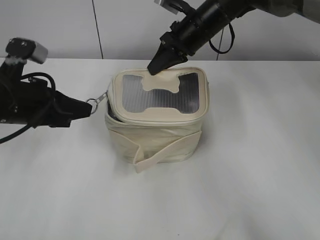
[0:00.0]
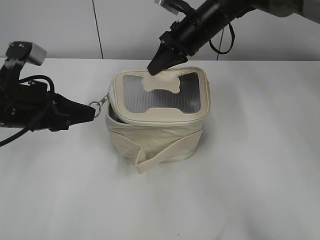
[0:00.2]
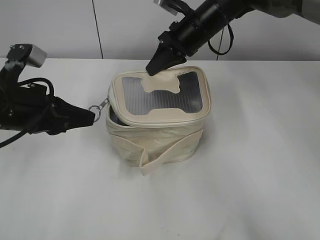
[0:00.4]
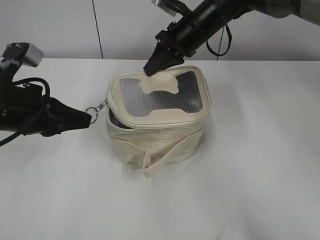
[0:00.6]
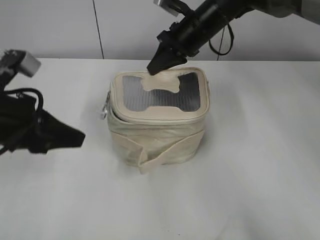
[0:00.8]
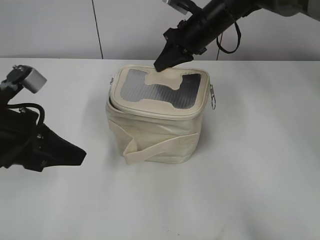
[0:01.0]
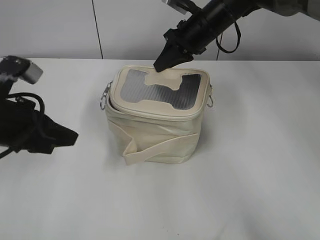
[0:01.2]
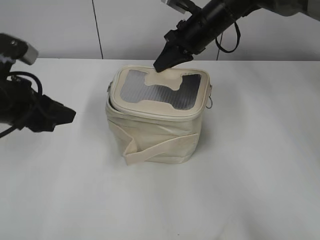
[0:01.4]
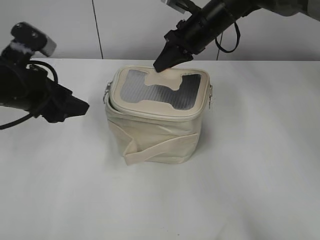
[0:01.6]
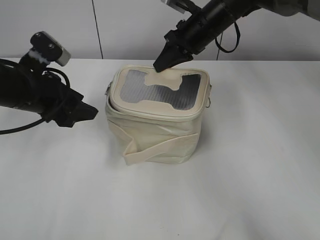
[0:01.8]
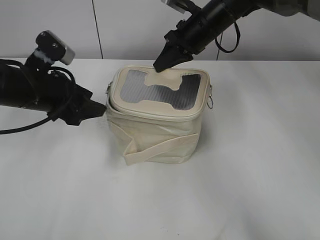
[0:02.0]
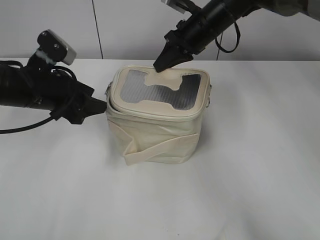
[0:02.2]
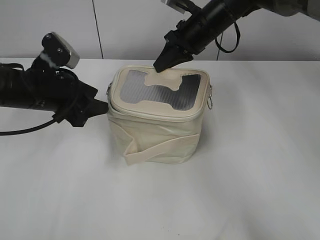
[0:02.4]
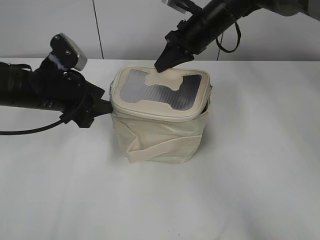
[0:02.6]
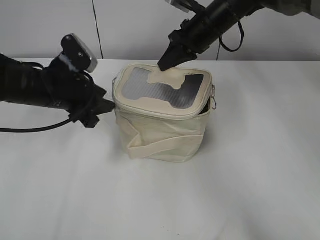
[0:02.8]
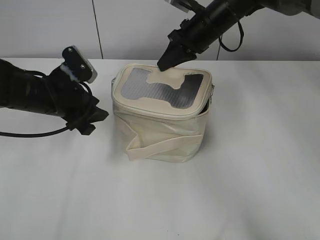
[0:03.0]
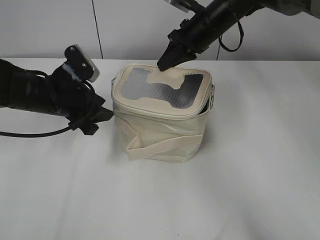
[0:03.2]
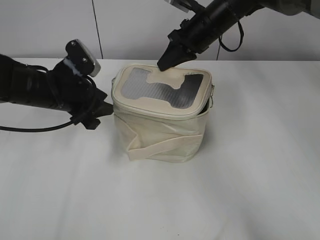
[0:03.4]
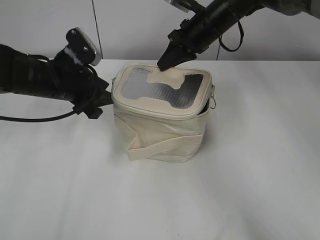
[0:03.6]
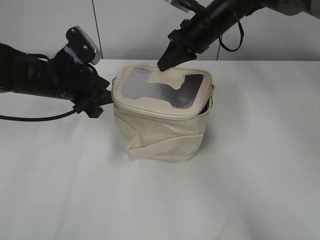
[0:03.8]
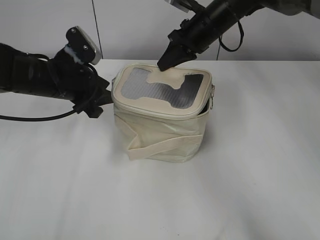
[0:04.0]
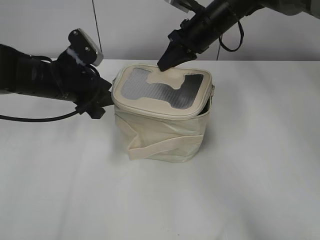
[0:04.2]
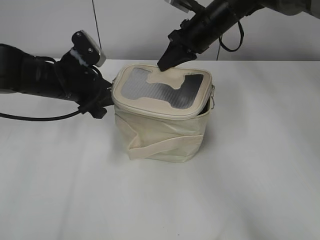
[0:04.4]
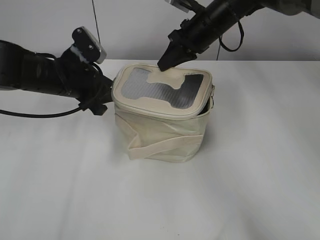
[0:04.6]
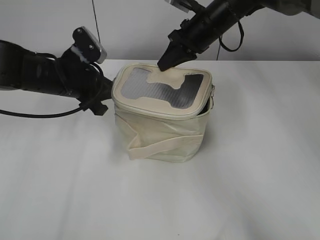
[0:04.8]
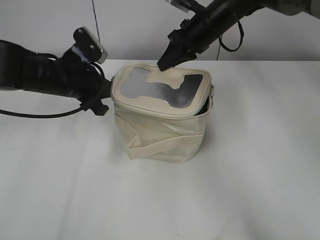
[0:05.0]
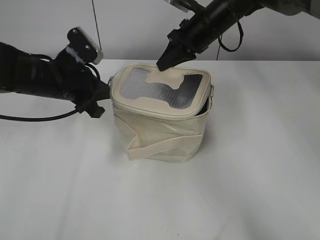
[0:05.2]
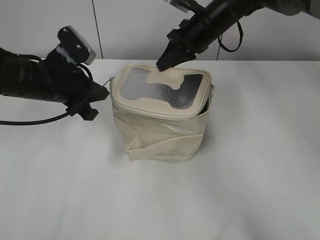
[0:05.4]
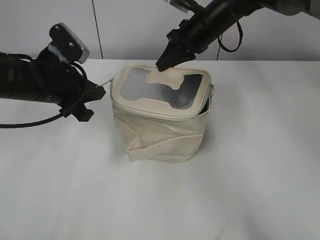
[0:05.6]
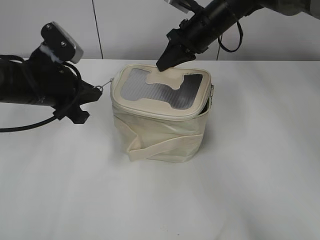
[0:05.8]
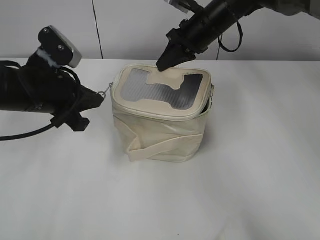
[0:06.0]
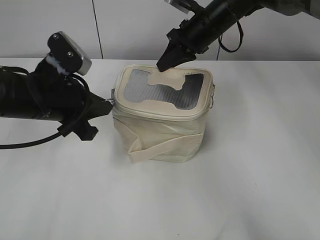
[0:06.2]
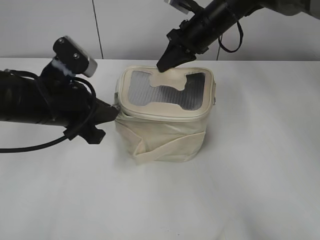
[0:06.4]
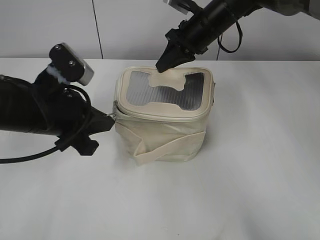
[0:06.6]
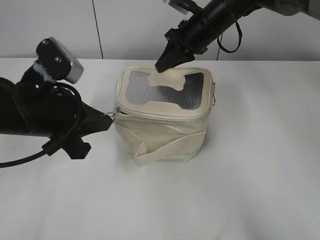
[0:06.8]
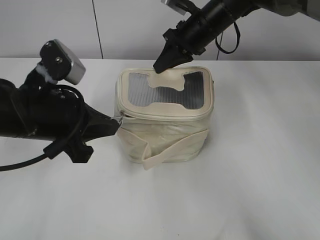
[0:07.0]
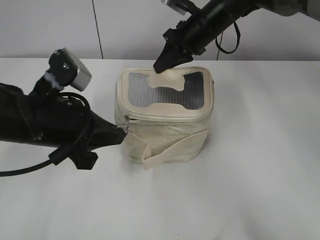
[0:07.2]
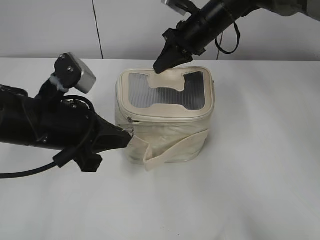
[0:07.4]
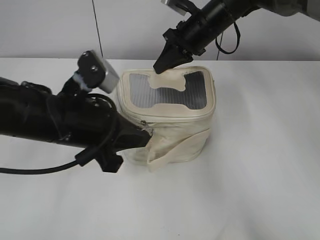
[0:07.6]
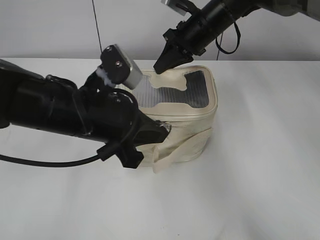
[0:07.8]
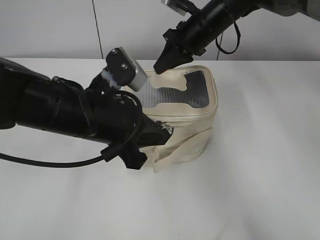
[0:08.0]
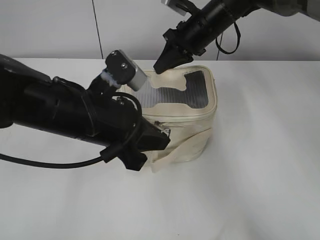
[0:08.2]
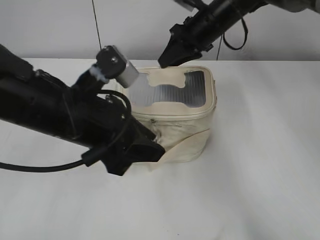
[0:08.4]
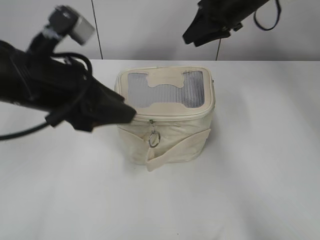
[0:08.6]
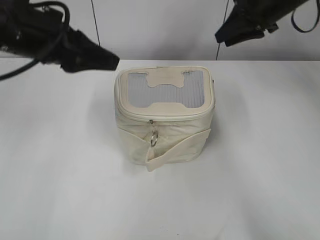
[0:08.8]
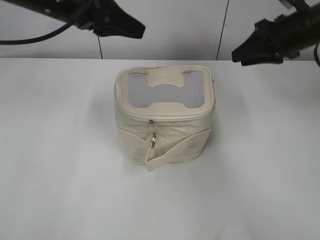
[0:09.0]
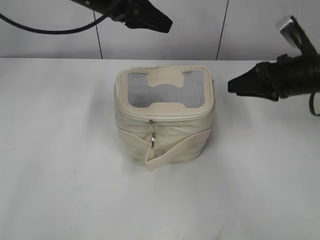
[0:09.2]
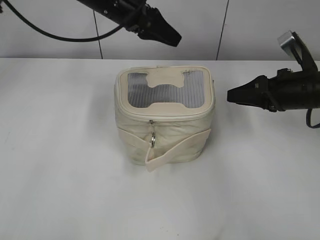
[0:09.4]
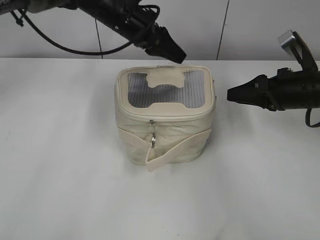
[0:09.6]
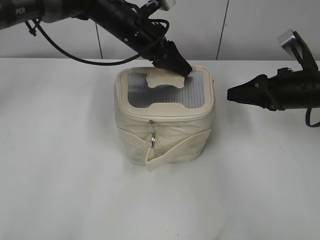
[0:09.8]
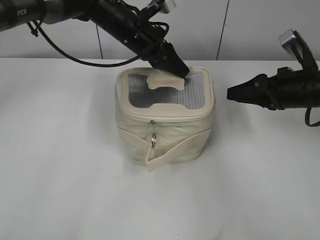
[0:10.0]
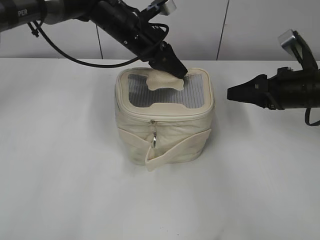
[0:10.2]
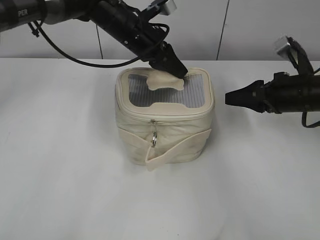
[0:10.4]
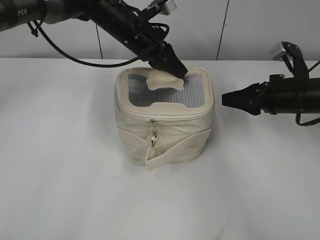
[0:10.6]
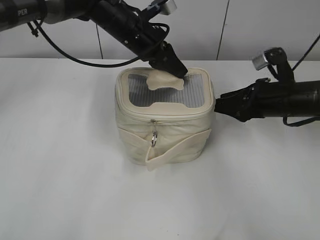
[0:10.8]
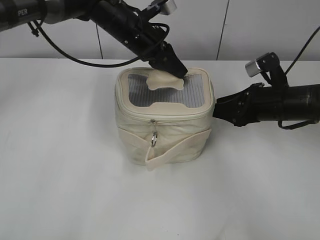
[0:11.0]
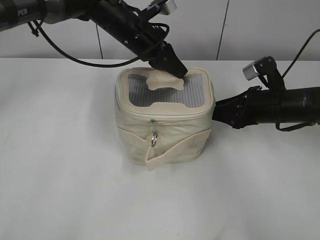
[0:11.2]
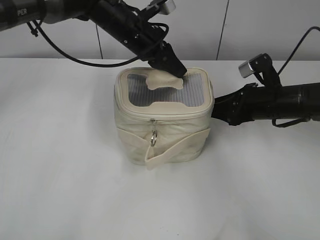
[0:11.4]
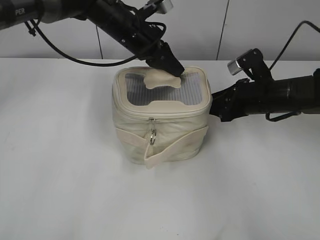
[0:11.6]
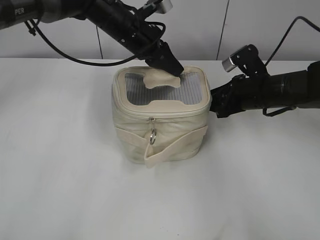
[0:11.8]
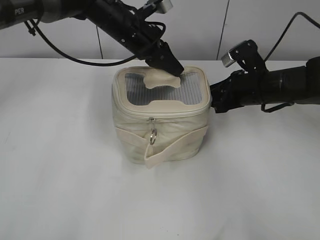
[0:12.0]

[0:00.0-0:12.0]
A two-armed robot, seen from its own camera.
Step, 0:00.0 to 0:08.2: Zip up the bag with your left hand.
0:00.0 to 0:01.6: The left gripper opens.
0:01.6 to 0:03.0: The left gripper travels downward and forward by roughly 10 cm.
0:03.0 to 0:04.4: There are only small adjustments of the grippers.
0:04.4 to 0:06.0: The left gripper goes roughly 5 cm backward, and closes its fingers.
0:06.0 to 0:07.6: The left gripper travels backward and to the right by some 10 cm.
0:07.6 to 0:09.0: The right gripper travels to the right by roughly 15 cm, and opens its fingers. Meanwhile the left gripper shifts approximately 15 cm forward and upward, and opens.
0:09.0 to 0:10.4: The left gripper goes approximately 20 cm to the right, forward and downward, and closes its fingers; the right gripper goes roughly 15 cm backward and downward.
0:10.4 to 0:12.0: The right gripper shifts some 5 cm to the left.

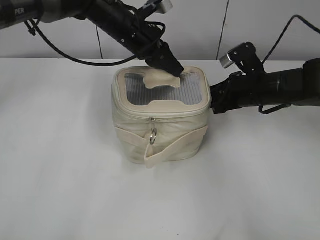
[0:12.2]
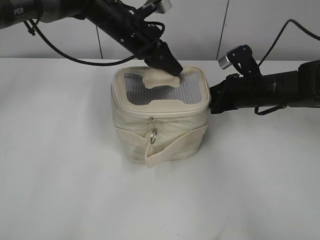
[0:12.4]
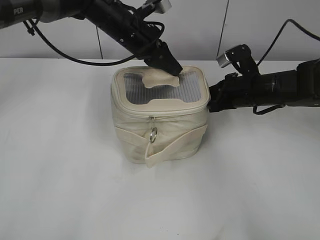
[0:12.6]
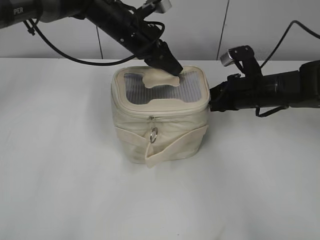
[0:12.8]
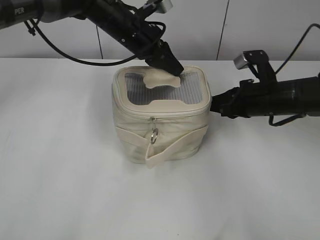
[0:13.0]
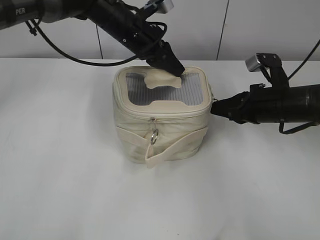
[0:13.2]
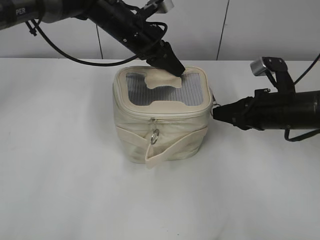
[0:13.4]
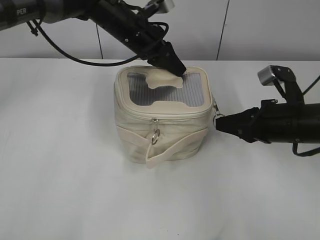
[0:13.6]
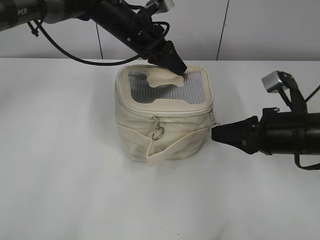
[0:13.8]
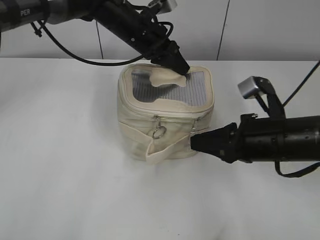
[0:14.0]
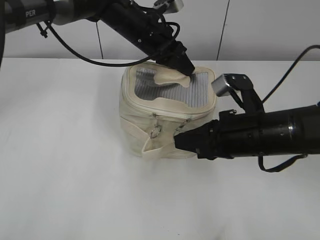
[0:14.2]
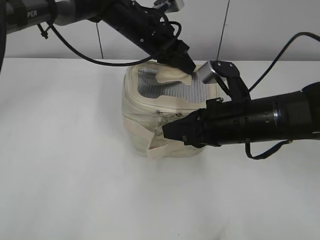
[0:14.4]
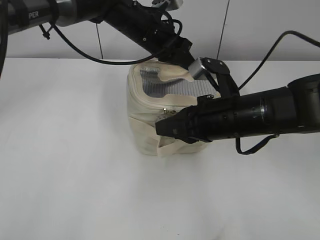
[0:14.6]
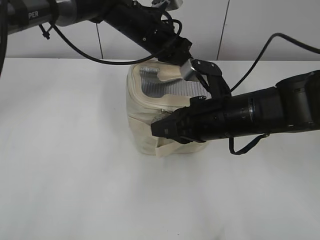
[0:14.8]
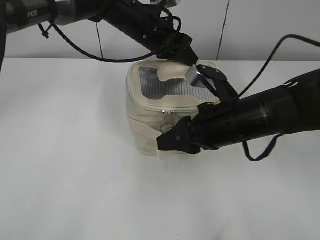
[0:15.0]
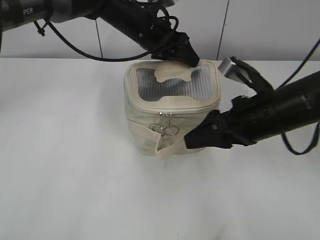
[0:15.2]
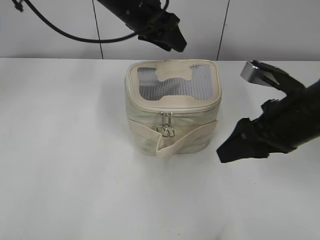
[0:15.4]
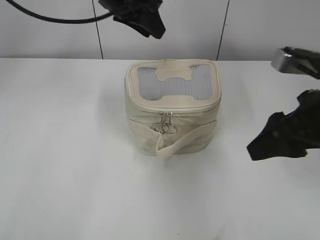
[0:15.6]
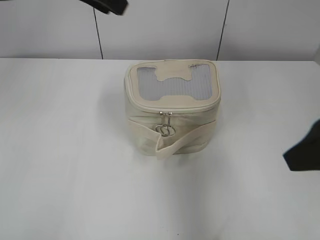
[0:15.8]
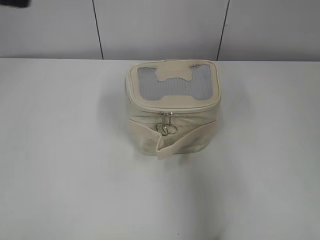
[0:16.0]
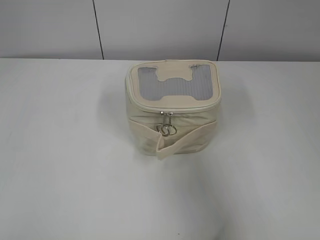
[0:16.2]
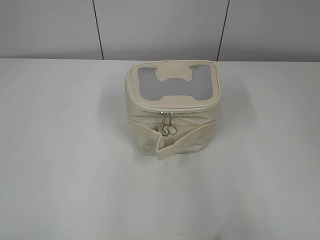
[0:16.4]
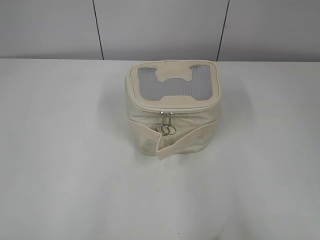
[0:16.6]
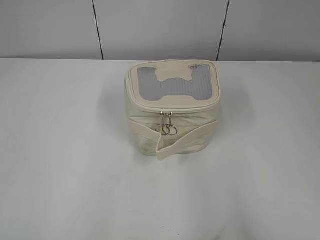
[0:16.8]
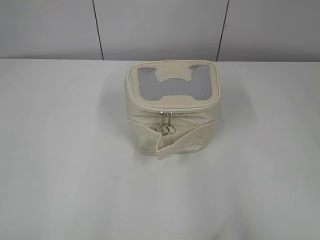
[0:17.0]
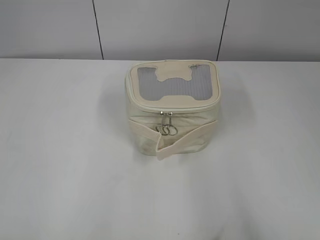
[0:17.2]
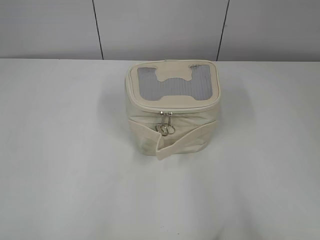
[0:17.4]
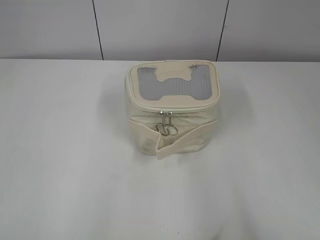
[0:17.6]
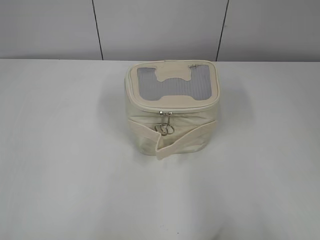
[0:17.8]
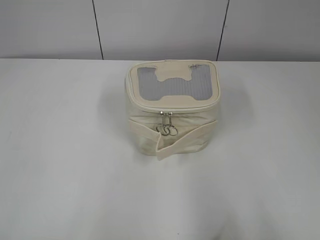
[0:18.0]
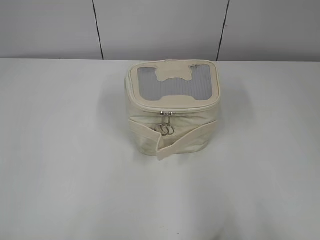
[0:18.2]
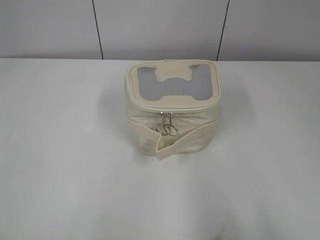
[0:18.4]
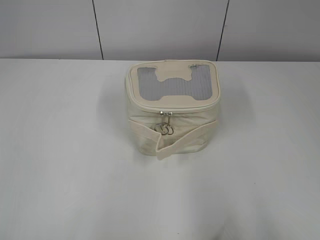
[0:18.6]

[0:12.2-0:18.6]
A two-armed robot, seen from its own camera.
Step, 0:12.2 to 0:14.8: Zip up the bag with your right hand.
Step, 0:15.0 to 0:15.2: Hold the bag with your left hand.
0:12.2 to 0:13.8: The right gripper is displaced backward by roughly 10 cm, and closes its fingers.
0:13.8 to 0:15.4: The left gripper opens up. Meanwhile the right gripper is displaced upward by approximately 5 cm, goes to the left and returns, some 10 cm each way, and opens.
0:15.4 to 0:17.0: The right gripper travels backward by about 25 cm; the left gripper heads backward and to the left, covering roughly 50 cm.
